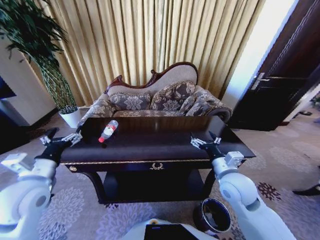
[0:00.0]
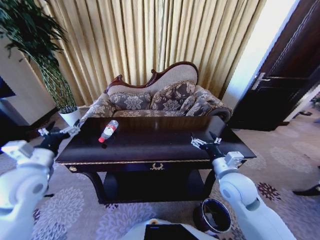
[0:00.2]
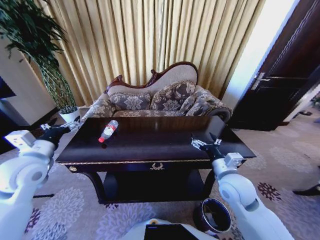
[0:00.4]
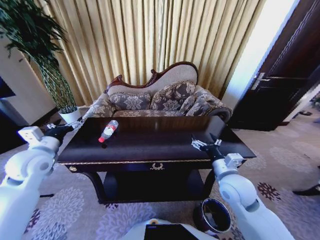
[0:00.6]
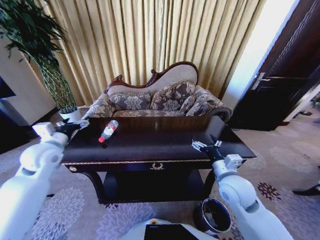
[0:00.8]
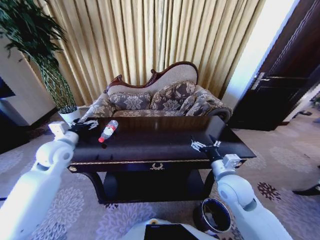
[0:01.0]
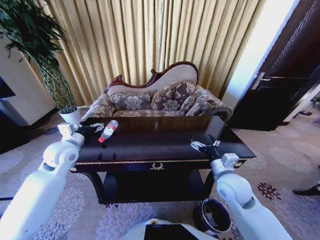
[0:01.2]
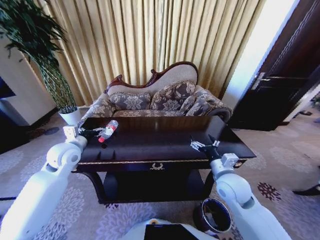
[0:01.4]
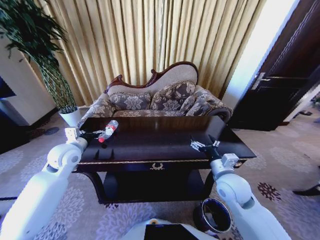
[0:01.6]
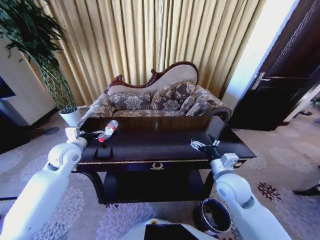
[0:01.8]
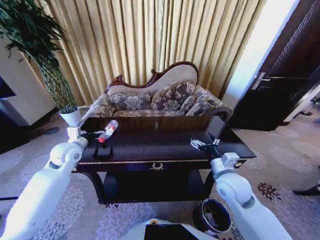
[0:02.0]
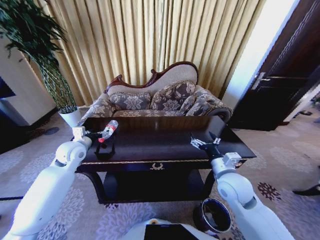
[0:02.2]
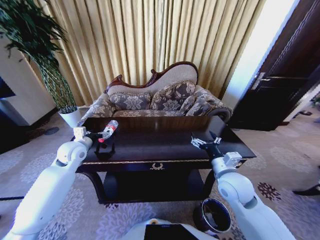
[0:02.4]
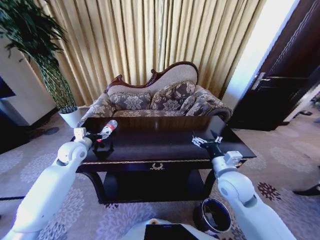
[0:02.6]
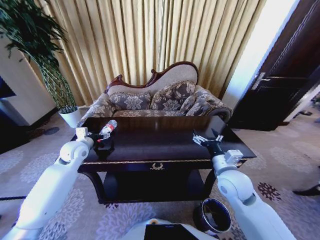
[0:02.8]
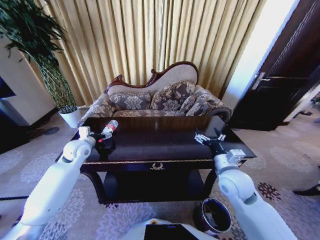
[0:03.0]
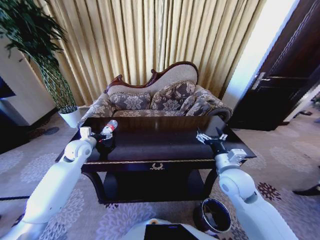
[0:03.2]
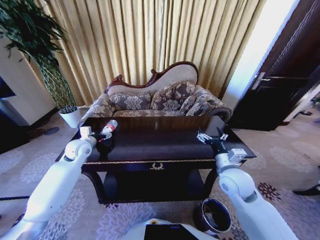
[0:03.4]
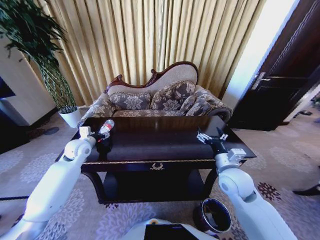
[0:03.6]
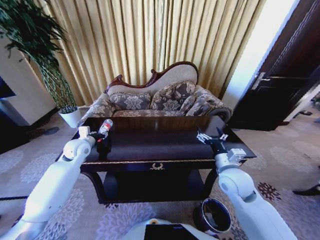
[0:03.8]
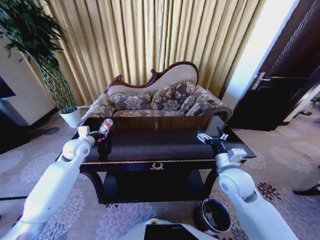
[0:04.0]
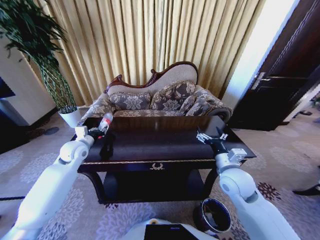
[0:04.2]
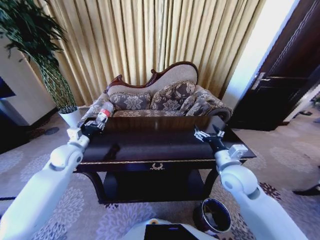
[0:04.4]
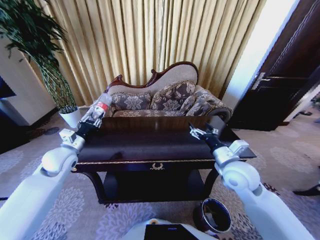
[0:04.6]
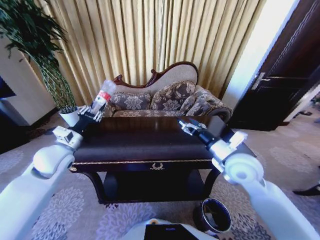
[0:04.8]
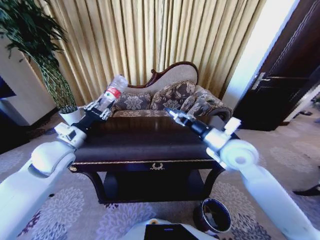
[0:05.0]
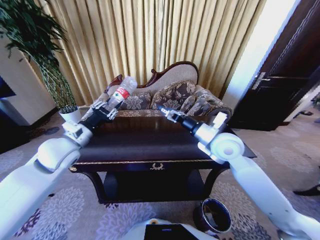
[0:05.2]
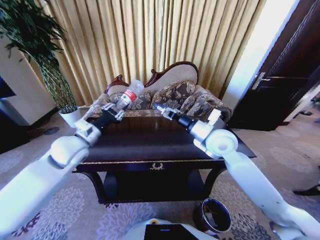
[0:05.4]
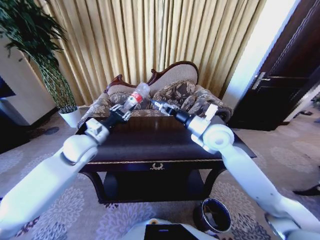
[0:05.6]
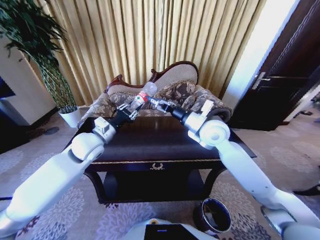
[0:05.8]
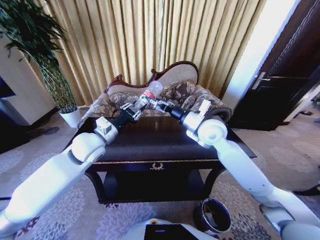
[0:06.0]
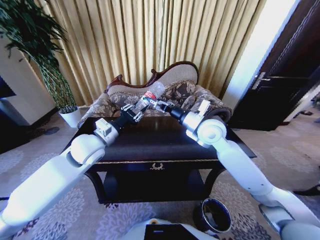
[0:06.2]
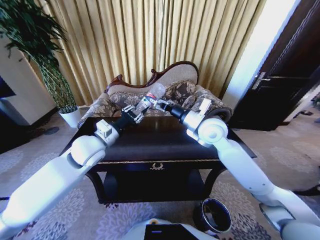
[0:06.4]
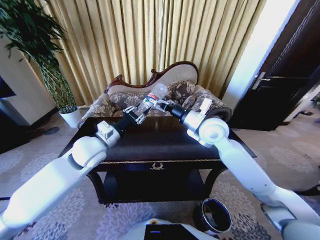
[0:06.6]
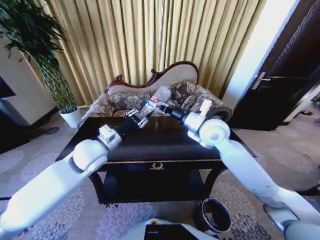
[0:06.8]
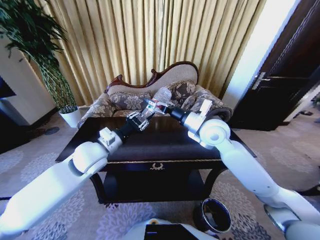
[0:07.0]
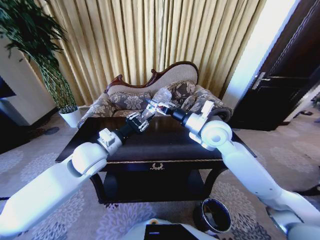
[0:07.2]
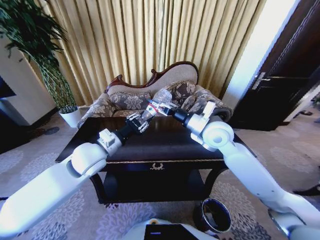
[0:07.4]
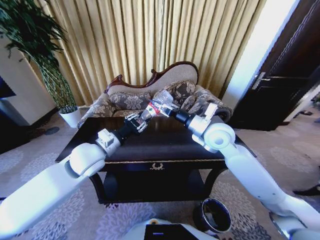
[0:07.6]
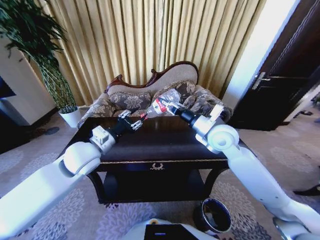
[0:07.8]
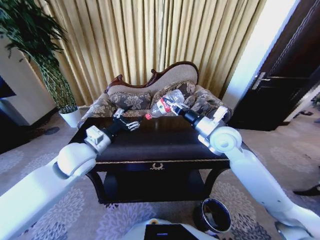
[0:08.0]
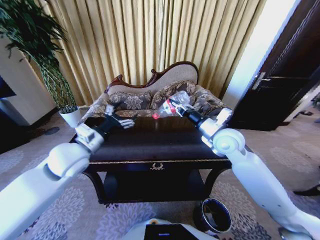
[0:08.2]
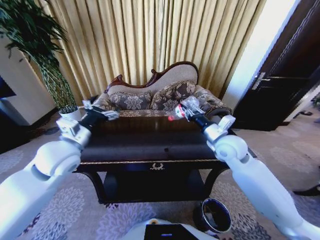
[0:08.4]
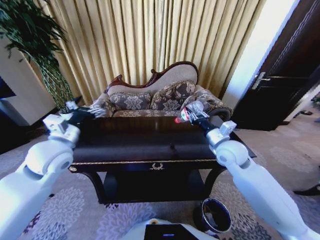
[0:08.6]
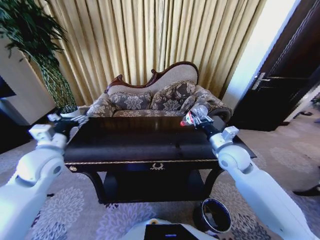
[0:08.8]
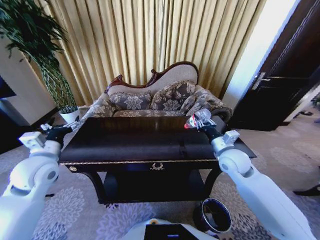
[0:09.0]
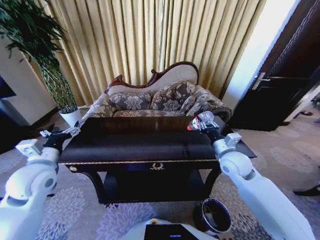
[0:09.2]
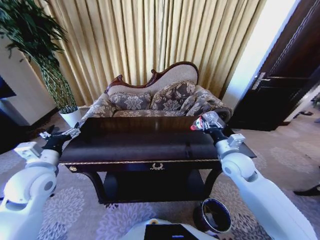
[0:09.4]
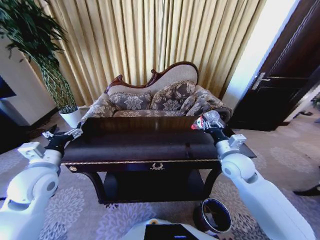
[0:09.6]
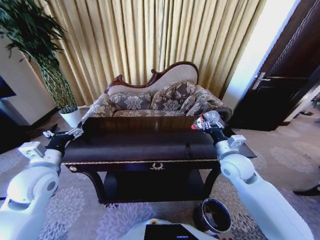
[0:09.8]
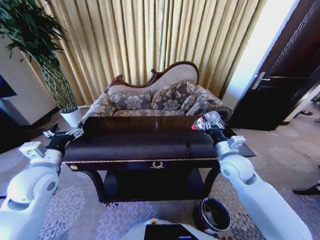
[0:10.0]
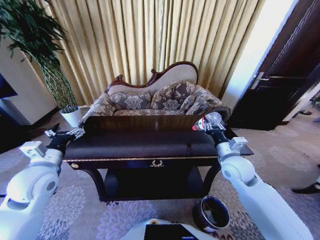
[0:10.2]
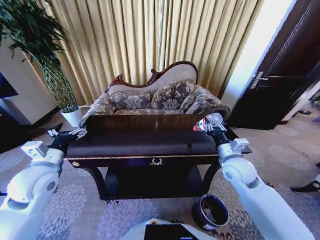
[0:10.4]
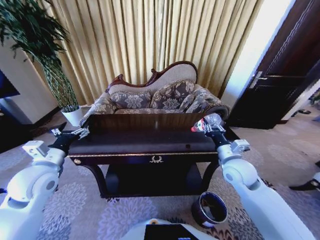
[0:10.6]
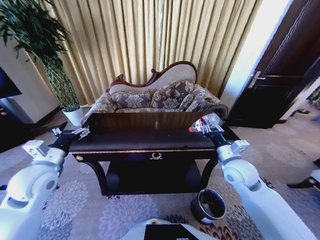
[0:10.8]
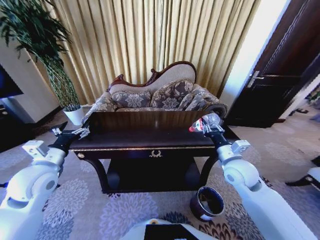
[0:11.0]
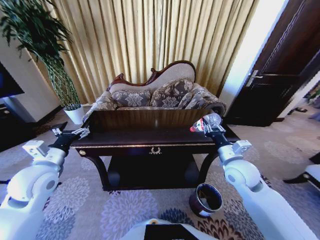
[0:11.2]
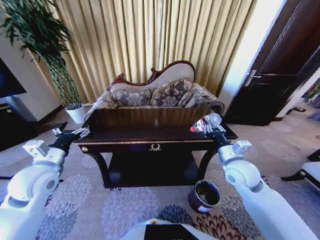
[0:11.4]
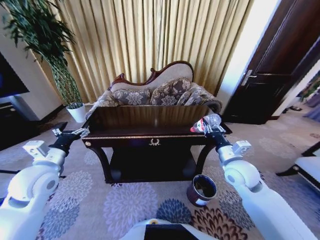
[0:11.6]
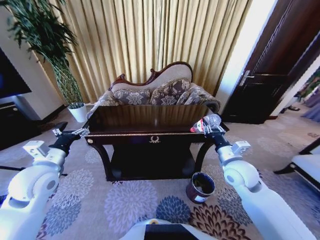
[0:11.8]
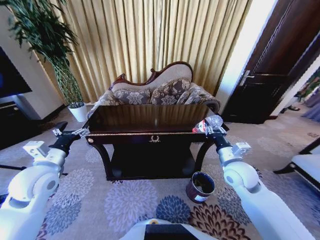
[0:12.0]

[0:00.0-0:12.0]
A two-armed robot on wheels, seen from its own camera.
Task of the whole recording: Move to the front of the table and place the trash on the table into the trash bin.
0:00.0 to 0:01.6: The left gripper moves forward, roughly 15 cm.
0:01.6 to 0:03.0: The left gripper goes some 5 cm forward.
0:03.0 to 0:04.4: The left gripper closes its fingers.
0:04.4 to 0:06.0: The right gripper moves forward, upward and to the left, about 20 cm. The left gripper goes roughly 15 cm to the right and upward.
0:06.0 to 0:07.6: The right gripper closes up.
0:07.6 to 0:09.0: The right gripper goes about 15 cm downward and to the right; the left gripper is displaced to the left by about 15 cm, and opens.

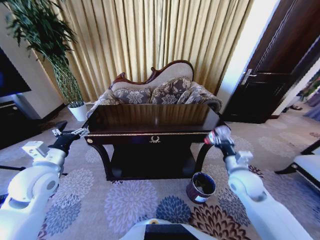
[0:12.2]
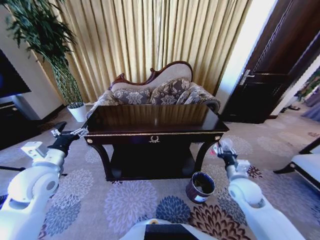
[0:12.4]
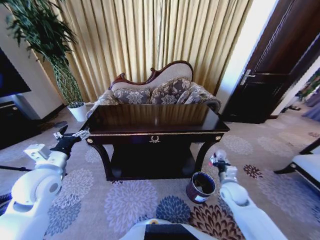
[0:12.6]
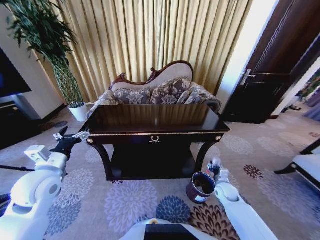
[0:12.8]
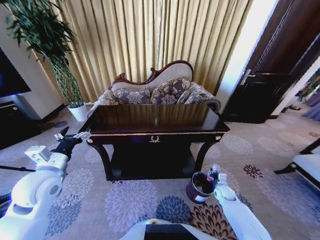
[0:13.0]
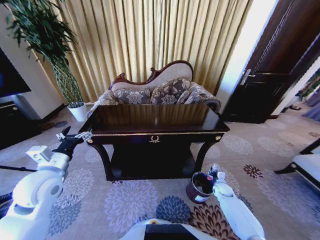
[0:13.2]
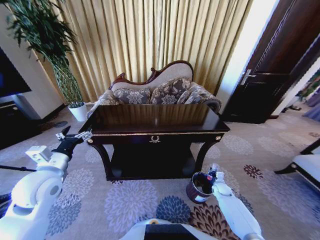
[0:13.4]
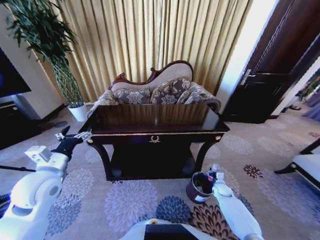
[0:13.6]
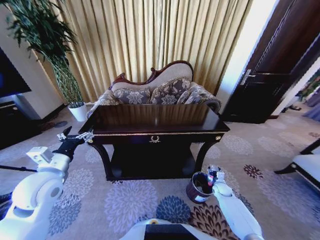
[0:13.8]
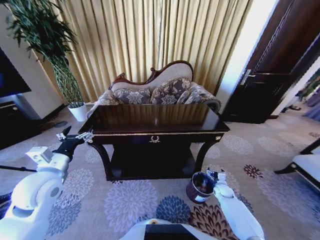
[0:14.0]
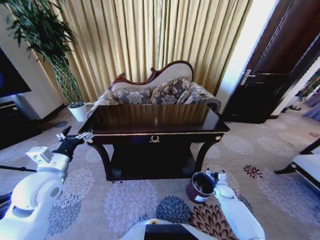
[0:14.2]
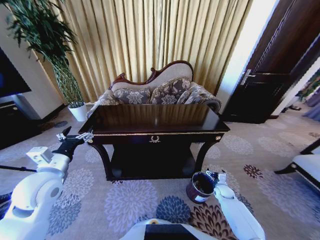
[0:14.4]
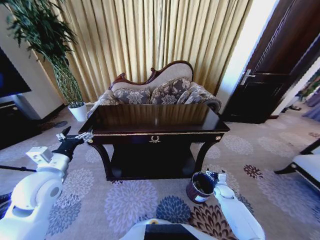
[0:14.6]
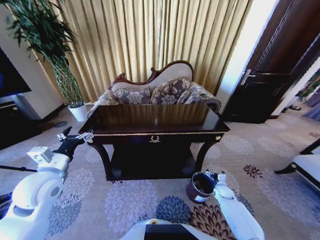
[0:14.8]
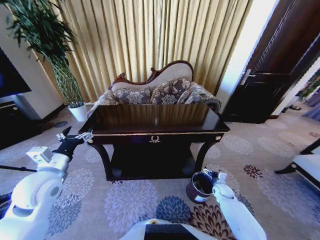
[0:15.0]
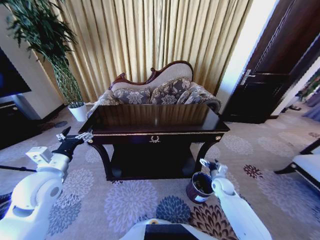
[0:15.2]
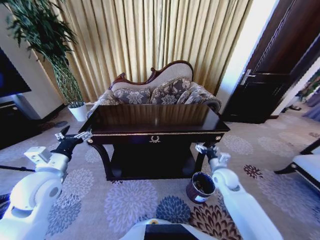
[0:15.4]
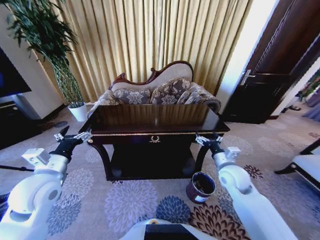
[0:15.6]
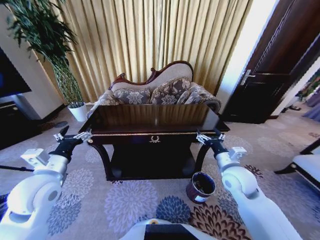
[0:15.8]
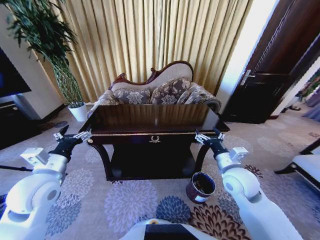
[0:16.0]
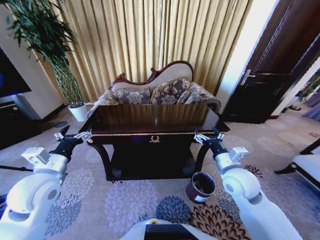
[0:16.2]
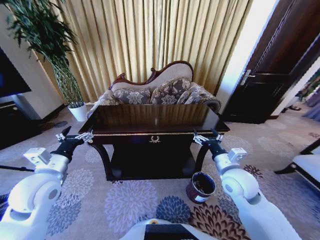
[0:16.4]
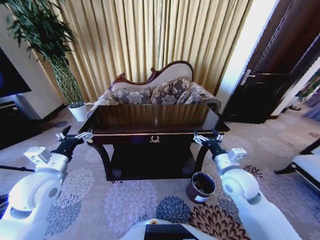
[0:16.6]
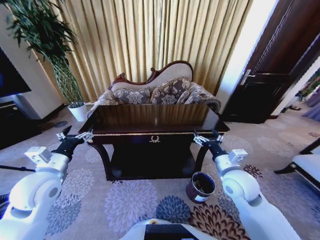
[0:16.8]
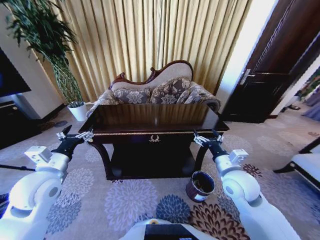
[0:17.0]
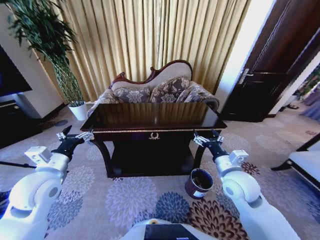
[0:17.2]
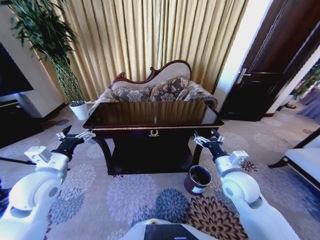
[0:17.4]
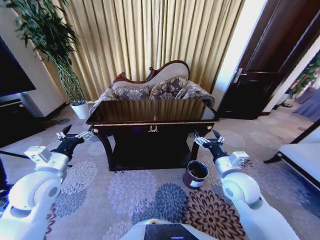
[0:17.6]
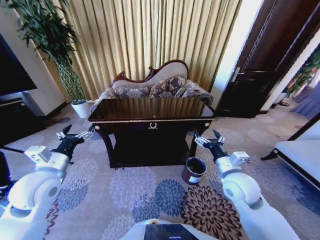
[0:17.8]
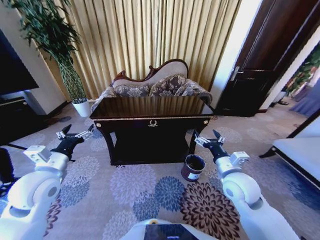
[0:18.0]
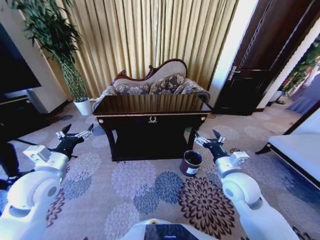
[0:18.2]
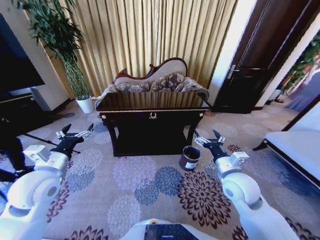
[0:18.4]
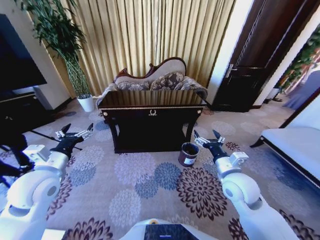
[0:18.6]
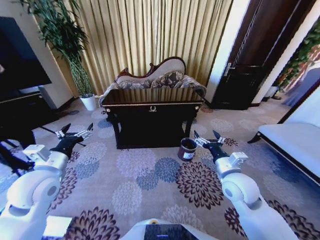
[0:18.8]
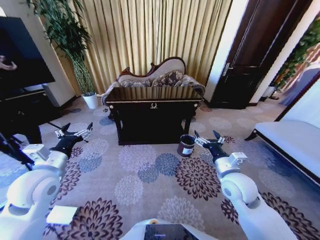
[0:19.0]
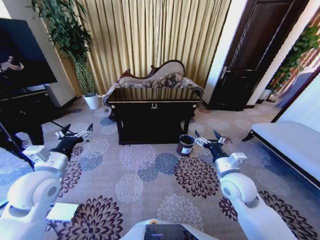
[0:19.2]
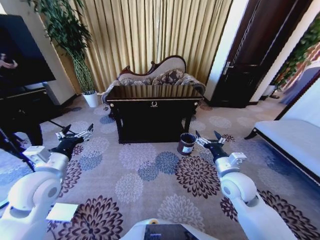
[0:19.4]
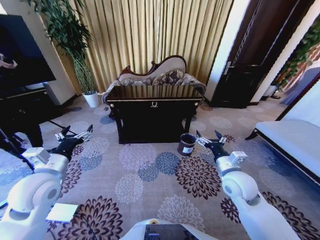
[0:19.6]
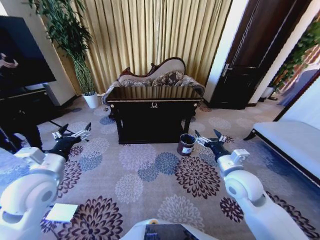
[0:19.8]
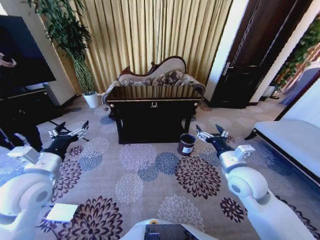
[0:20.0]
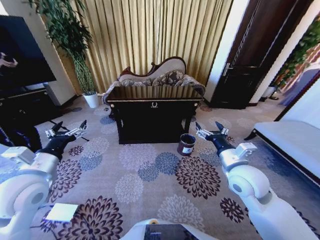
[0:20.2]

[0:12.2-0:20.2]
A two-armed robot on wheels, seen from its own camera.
Task of the whole recording: Move to the front of the table and place the trash on the table into the trash bin.
0:12.2 to 0:13.8: The right gripper travels downward by roughly 30 cm, and opens.
0:13.8 to 0:15.4: The right gripper heads upward and to the left, covering roughly 20 cm, and opens up.
0:15.4 to 0:17.0: The right gripper moves upward and backward, roughly 15 cm.

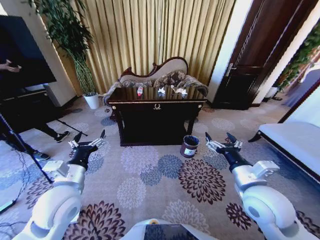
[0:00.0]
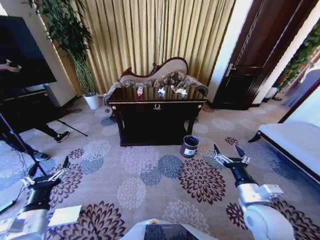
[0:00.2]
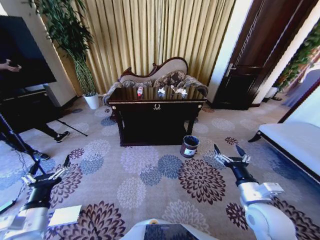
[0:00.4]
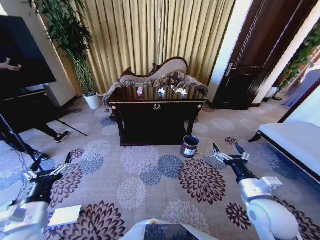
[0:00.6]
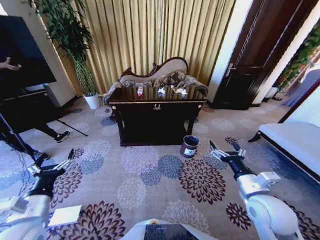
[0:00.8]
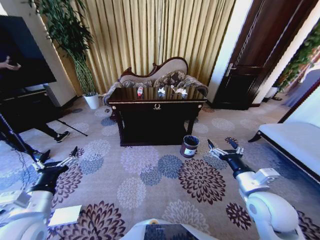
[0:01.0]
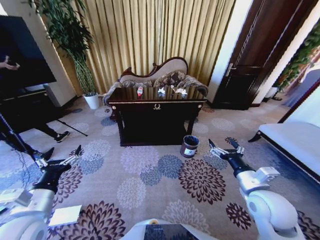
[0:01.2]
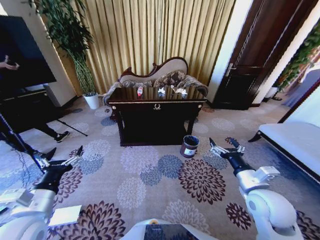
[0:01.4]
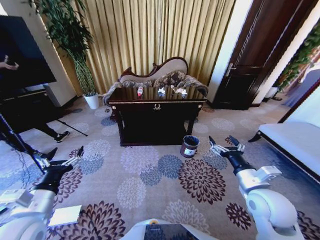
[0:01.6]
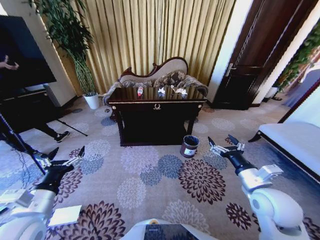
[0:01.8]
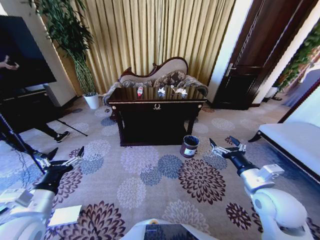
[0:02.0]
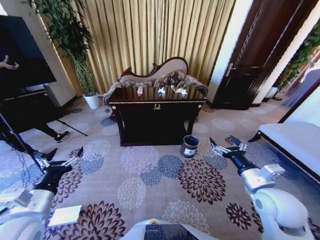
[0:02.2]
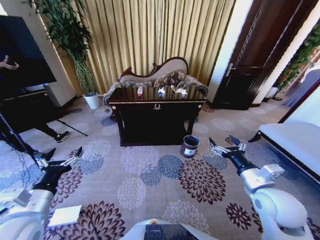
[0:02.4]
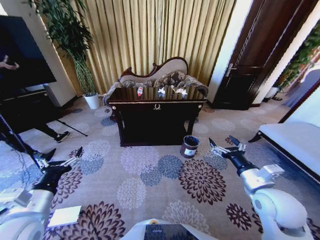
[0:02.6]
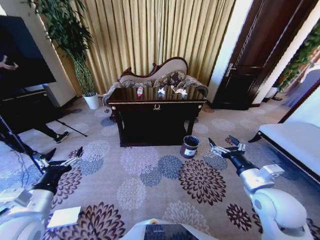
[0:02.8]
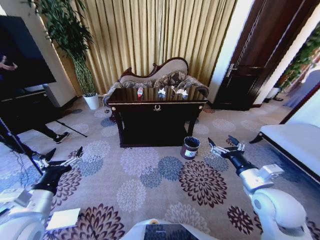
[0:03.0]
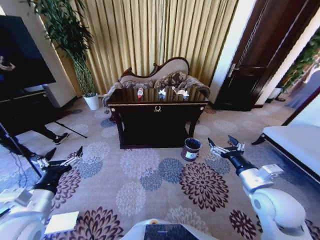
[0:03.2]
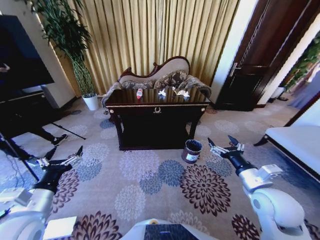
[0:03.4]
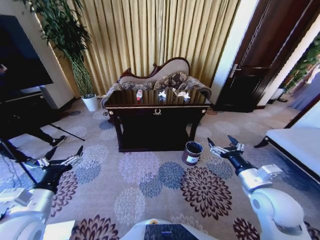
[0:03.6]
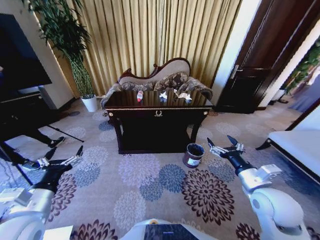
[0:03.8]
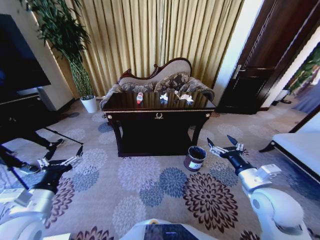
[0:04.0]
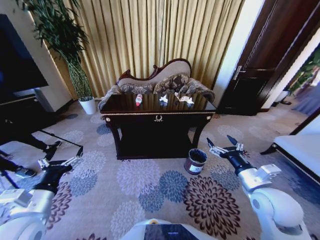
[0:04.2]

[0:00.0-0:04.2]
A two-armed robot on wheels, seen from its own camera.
Task of the whole recording: Move to the front of the table and place the trash on the table into the trash bin.
0:01.4 to 0:02.8: The grippers stay close to where they were, moving slightly.
